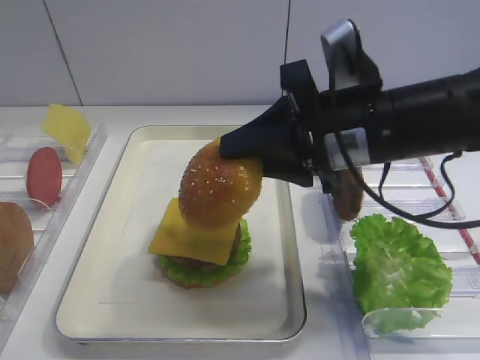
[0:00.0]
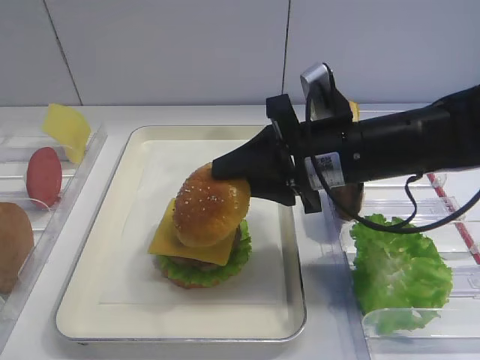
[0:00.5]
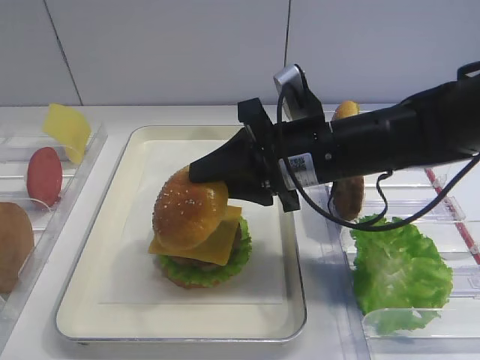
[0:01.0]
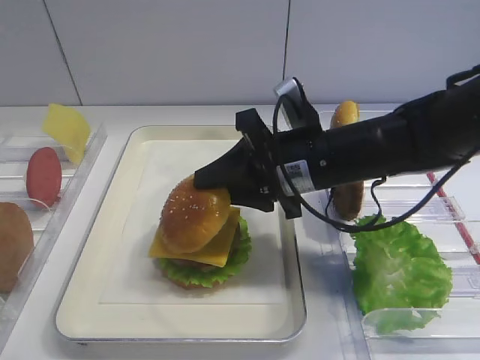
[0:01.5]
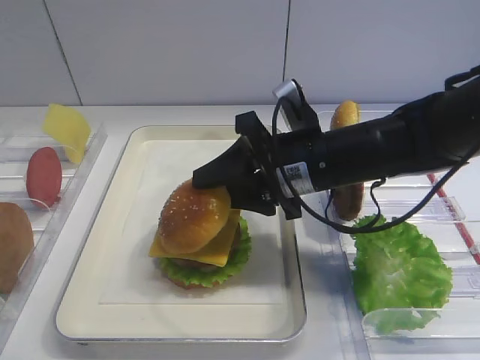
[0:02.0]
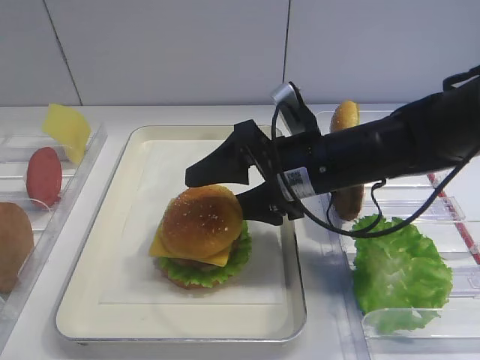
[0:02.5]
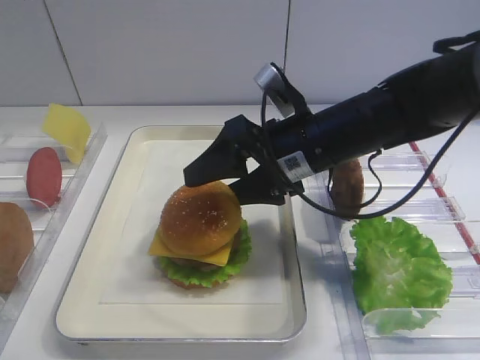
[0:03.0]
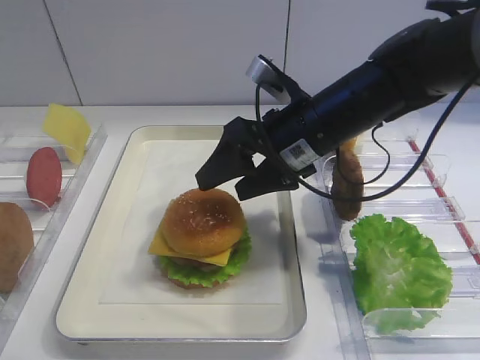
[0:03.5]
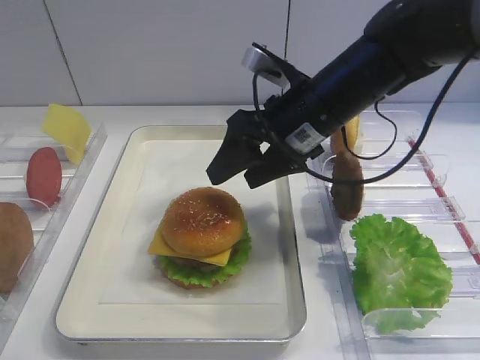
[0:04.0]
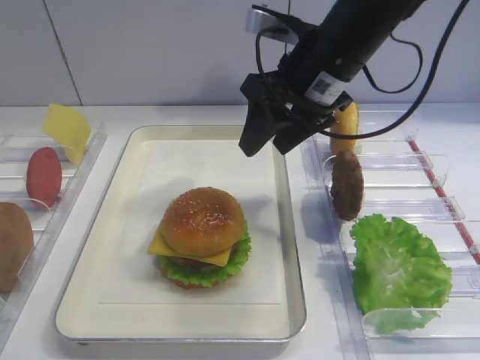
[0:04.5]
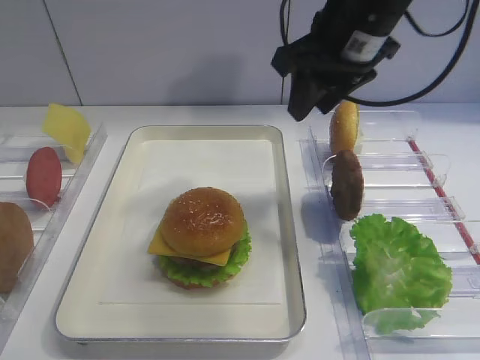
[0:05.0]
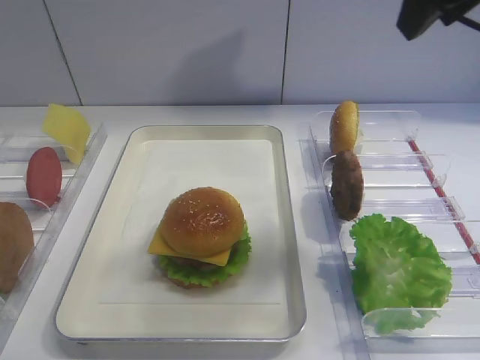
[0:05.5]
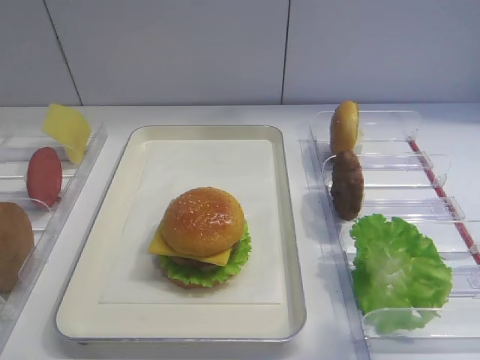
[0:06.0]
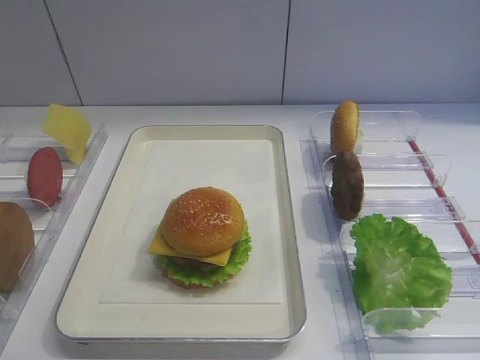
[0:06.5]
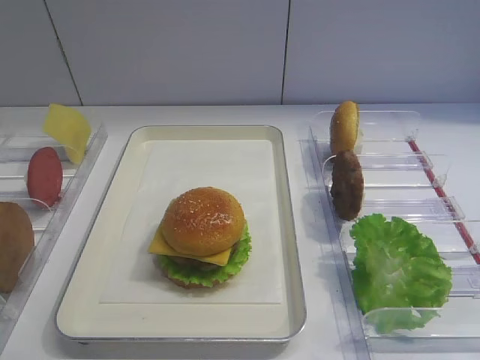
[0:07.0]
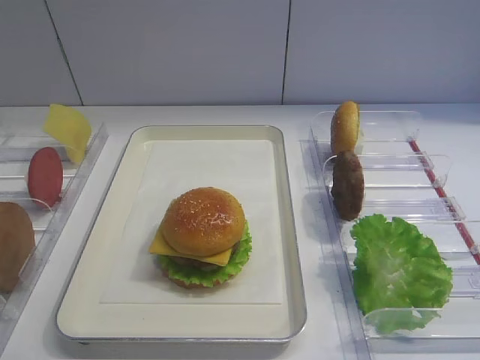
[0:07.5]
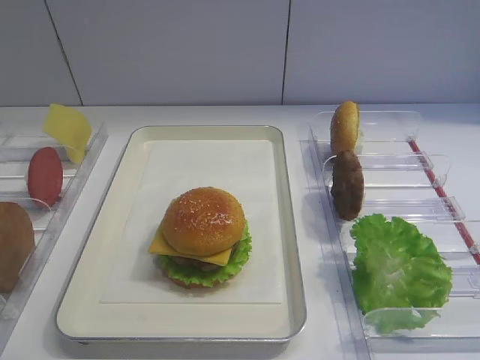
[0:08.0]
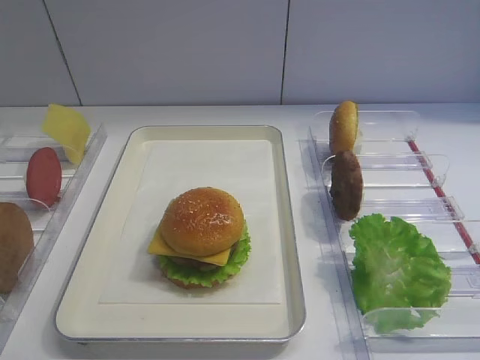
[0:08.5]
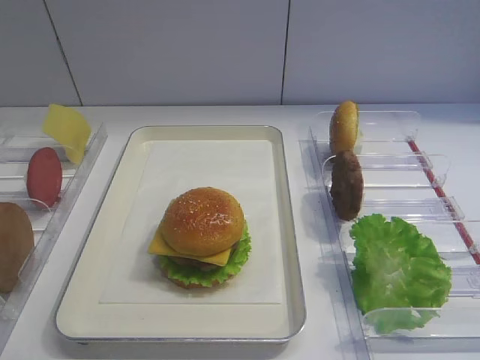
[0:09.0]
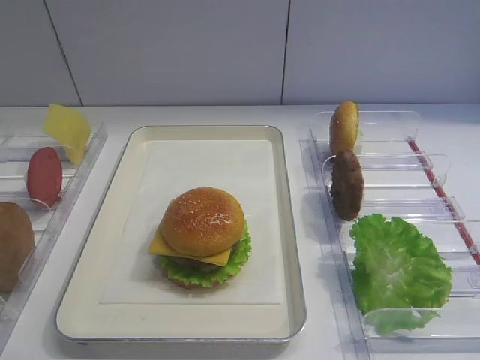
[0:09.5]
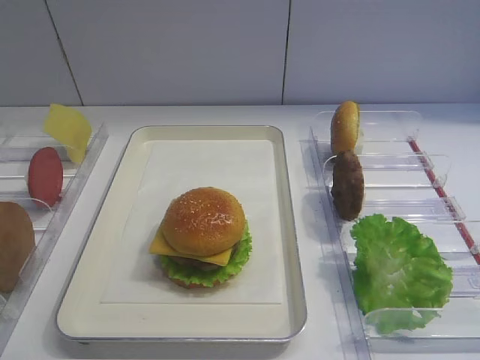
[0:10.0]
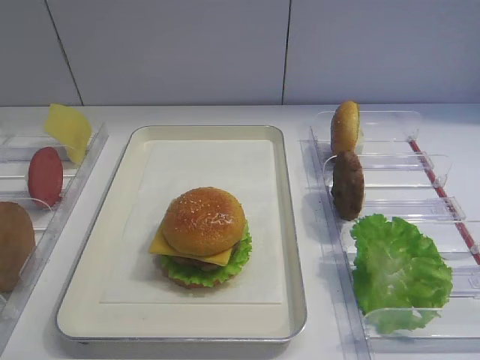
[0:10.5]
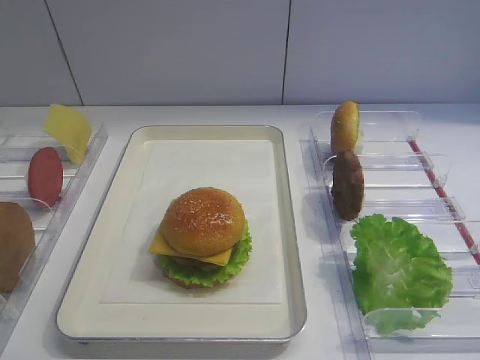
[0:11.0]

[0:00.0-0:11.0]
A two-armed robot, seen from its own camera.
Step, 0:00.0 to 0:03.5: Place the hamburger lid on the cheese slice with the right gripper.
0:00.0 to 0:02.0: The right gripper is displaced downward by about 5 cm.
0:02.0 to 0:03.5: The right gripper opens its fingers.
0:03.5 to 0:05.5: The right gripper goes some 20 cm upward and to the right, and closes.
0:05.5 to 0:07.5: The right gripper shifts about 30 cm backward and downward.

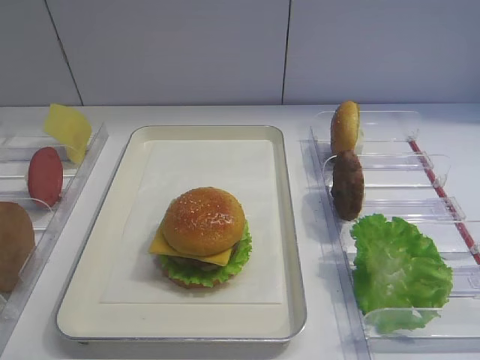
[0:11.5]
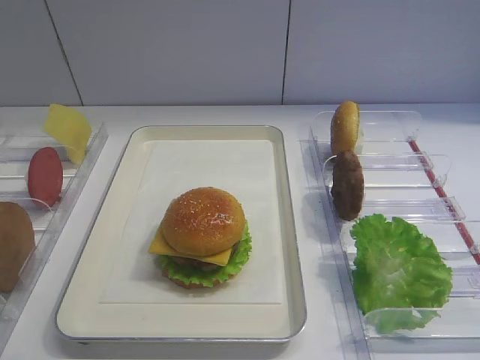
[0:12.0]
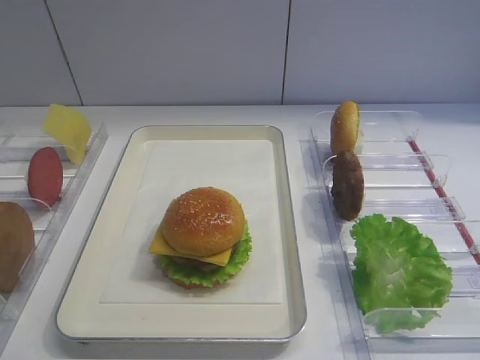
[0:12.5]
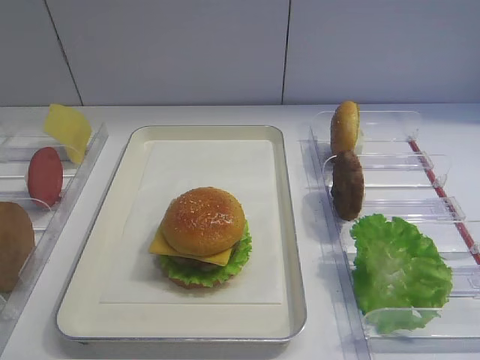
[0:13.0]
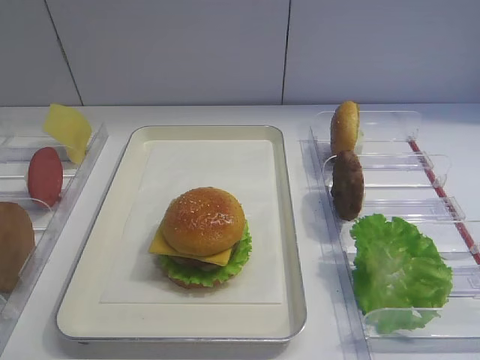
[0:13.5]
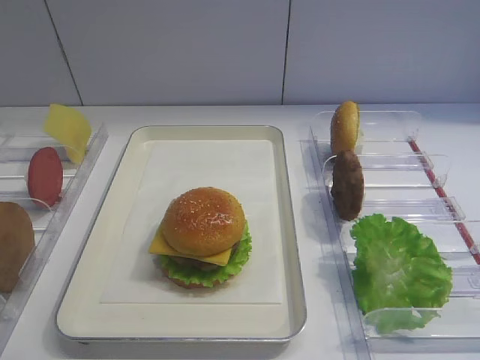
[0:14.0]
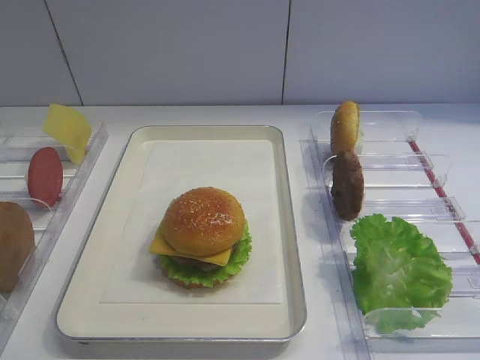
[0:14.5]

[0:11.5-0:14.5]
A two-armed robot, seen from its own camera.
0:11.5 to 0:14.5: Both grippers stay about where they are.

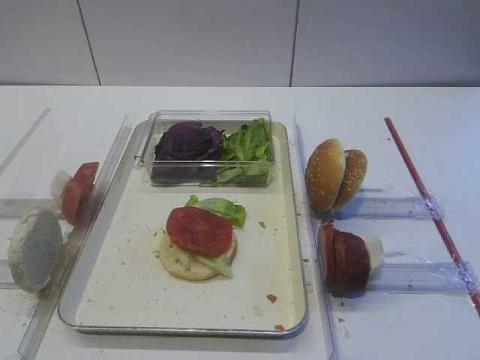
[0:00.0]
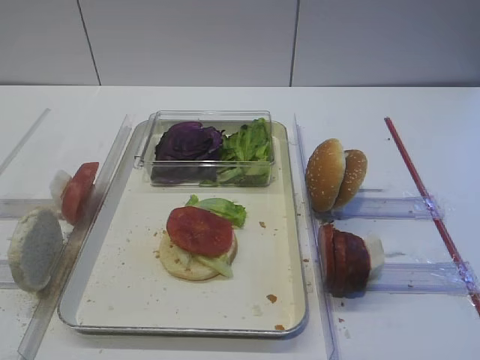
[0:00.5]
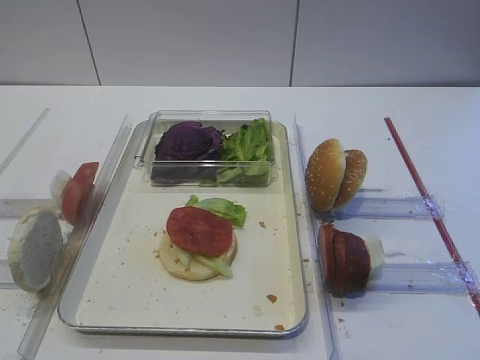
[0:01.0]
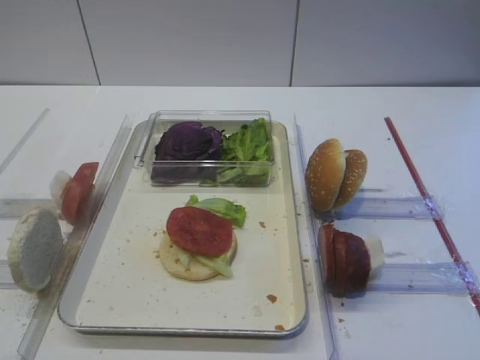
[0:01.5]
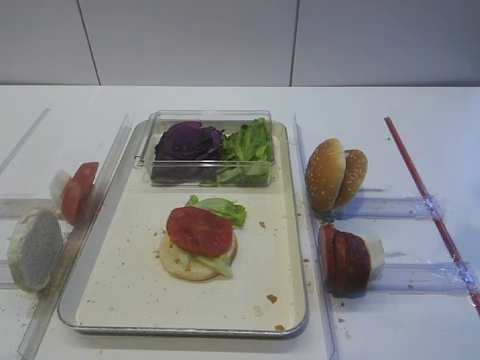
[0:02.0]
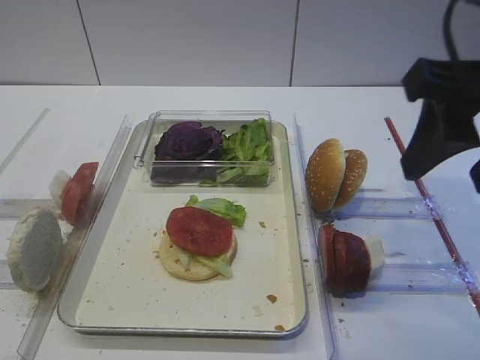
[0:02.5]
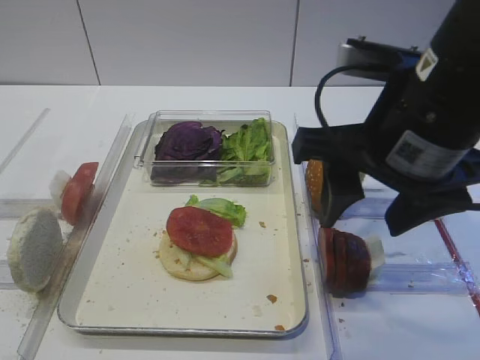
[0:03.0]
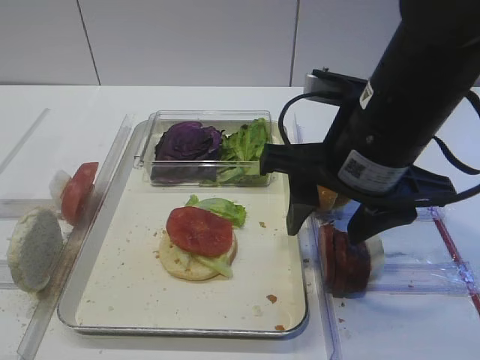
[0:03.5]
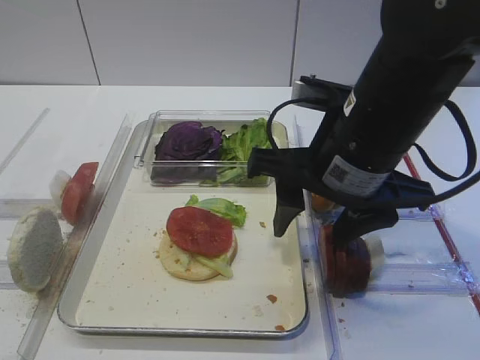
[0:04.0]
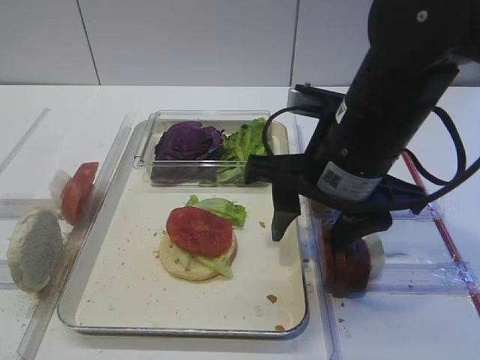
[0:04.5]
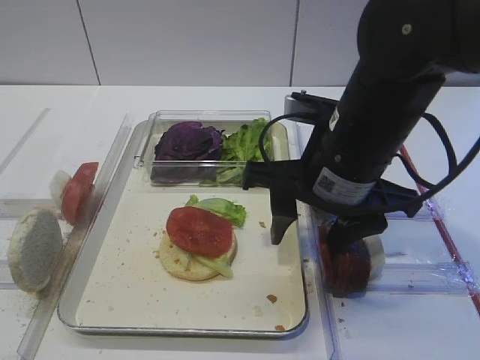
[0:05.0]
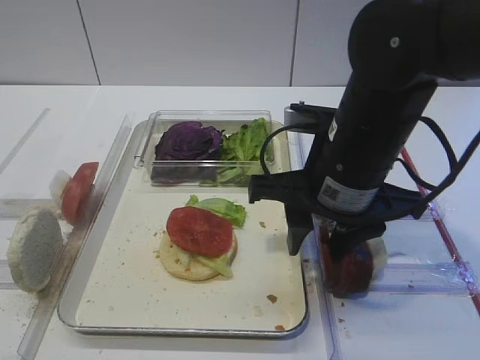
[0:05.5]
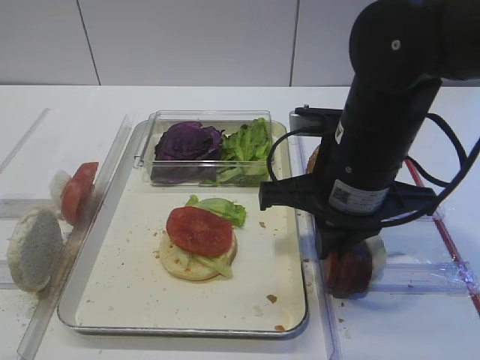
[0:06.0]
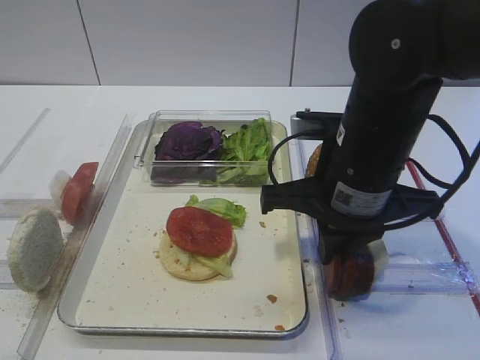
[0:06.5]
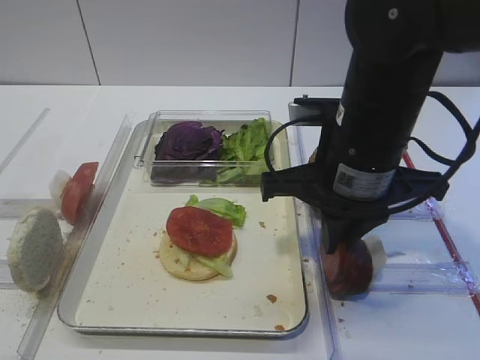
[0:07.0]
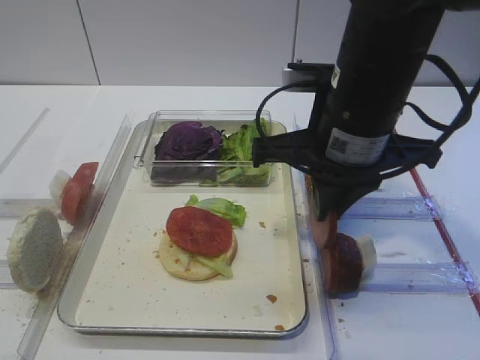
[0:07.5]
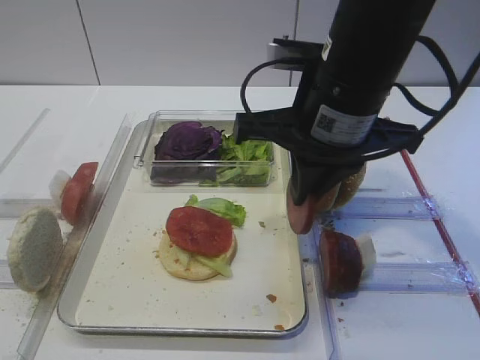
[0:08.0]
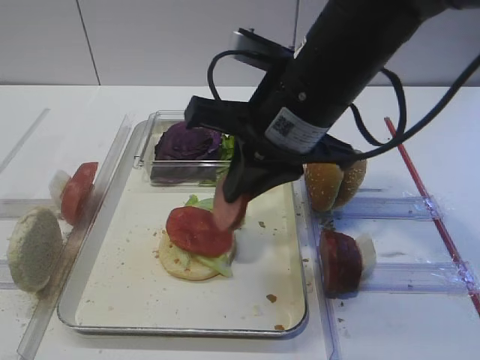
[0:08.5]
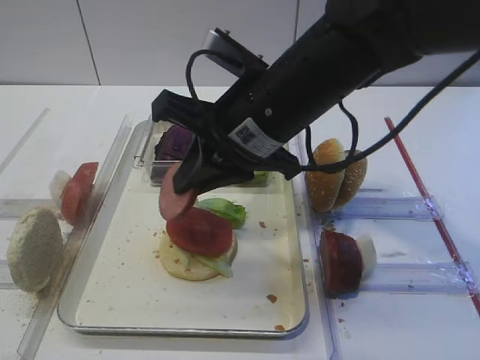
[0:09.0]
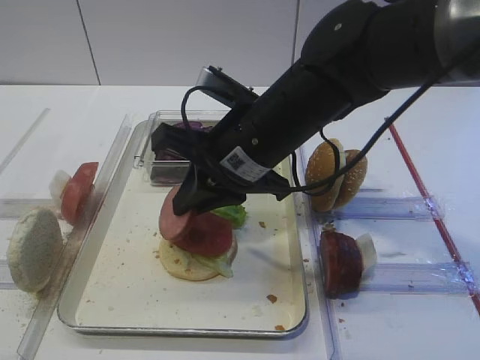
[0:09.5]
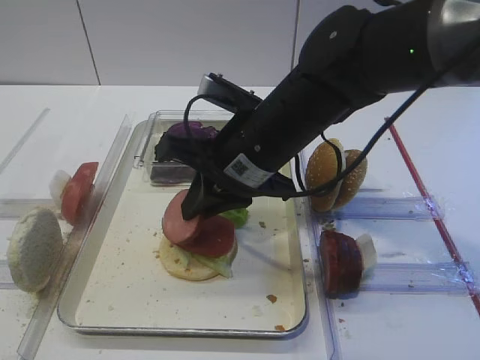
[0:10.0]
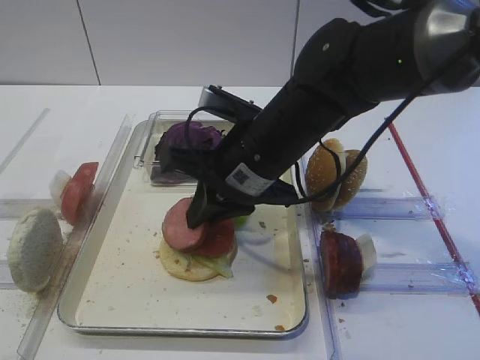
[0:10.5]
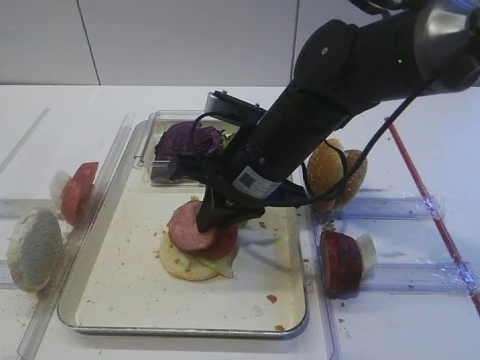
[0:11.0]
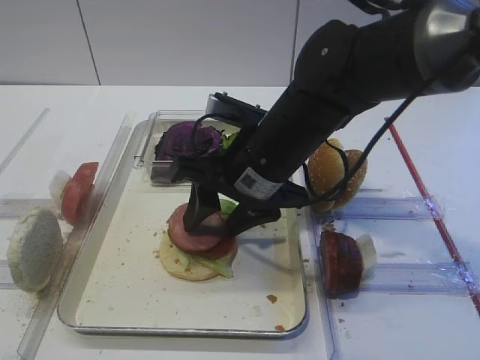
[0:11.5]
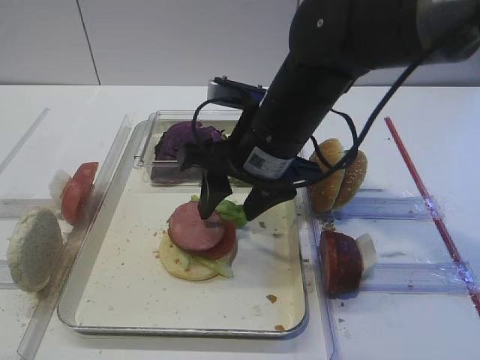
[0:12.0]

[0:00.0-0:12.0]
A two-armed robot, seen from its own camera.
Step, 0:00.0 to 0:07.5: Pick up the cutlet with the right gripper.
0:02.0 to 0:04.0: The right gripper is displaced to the left, downward and forward by some 20 cm.
0:04.0 to 0:06.0: The right gripper closes up.
0:06.0 to 0:08.0: The right gripper travels upward by roughly 5 cm.
0:08.0 to 0:10.0: The right gripper is displaced downward and to the left by about 10 cm.
0:10.0 to 0:12.0: The right gripper opens up.
